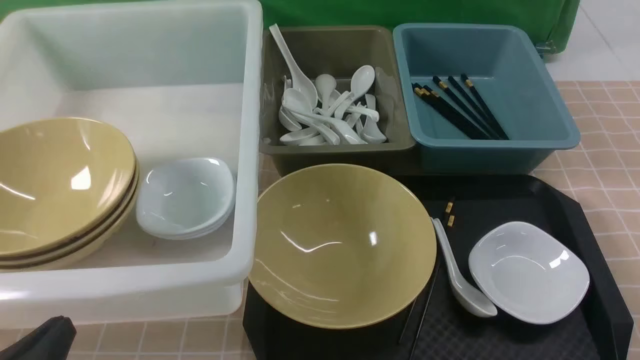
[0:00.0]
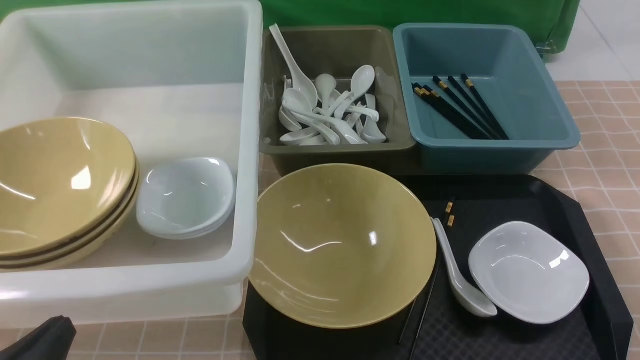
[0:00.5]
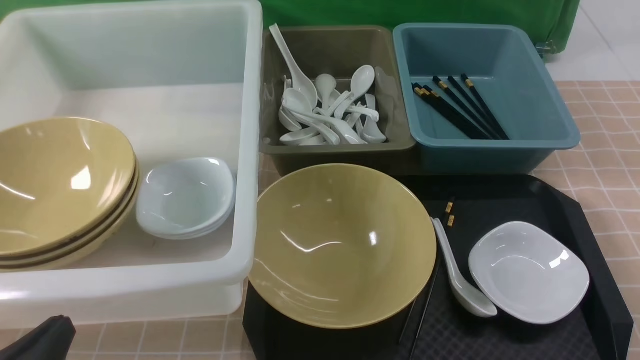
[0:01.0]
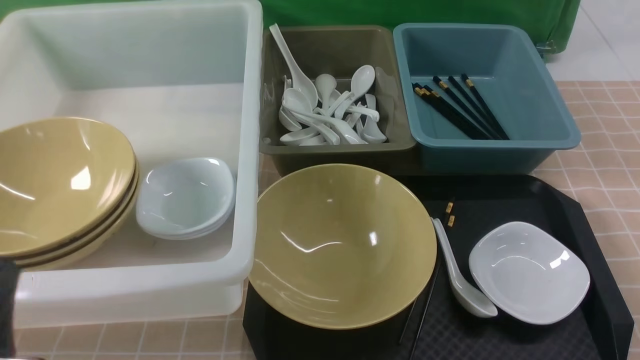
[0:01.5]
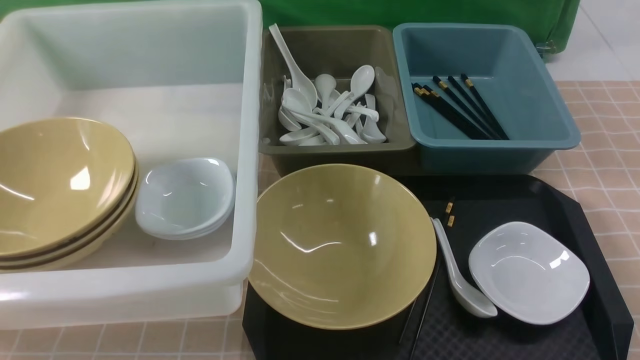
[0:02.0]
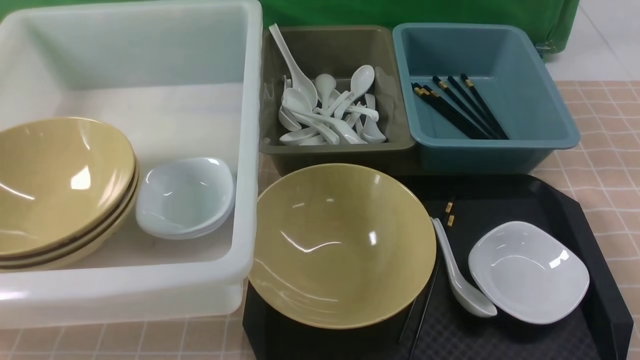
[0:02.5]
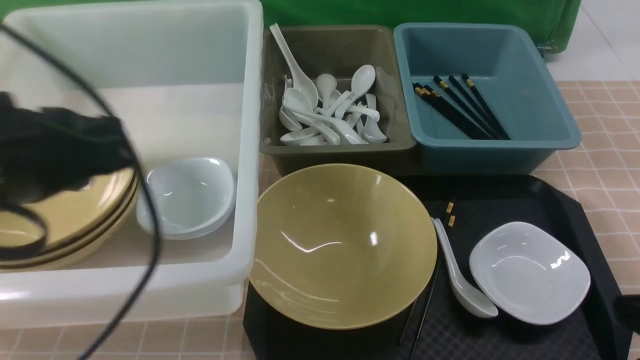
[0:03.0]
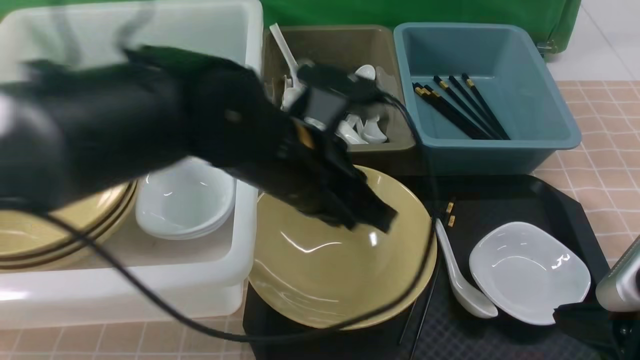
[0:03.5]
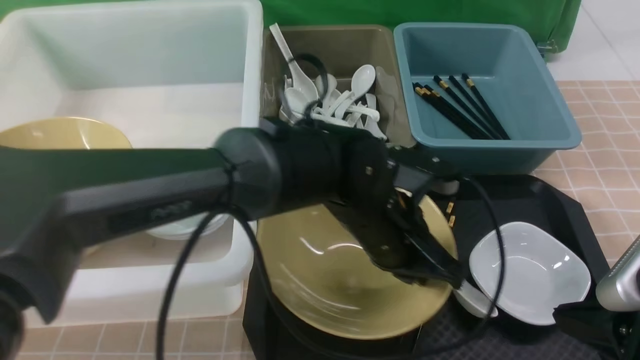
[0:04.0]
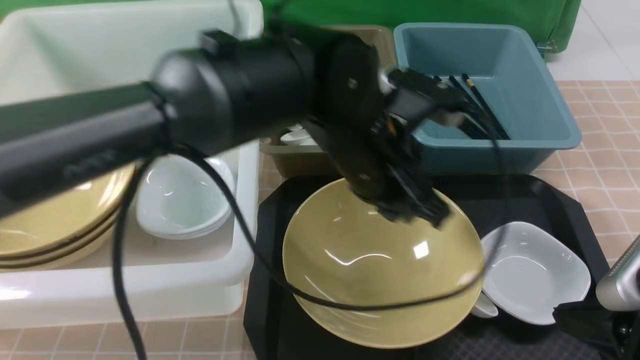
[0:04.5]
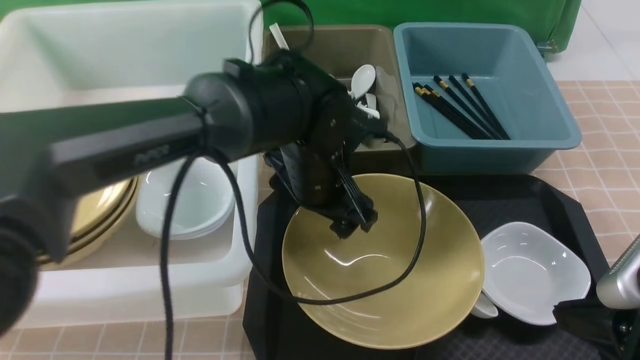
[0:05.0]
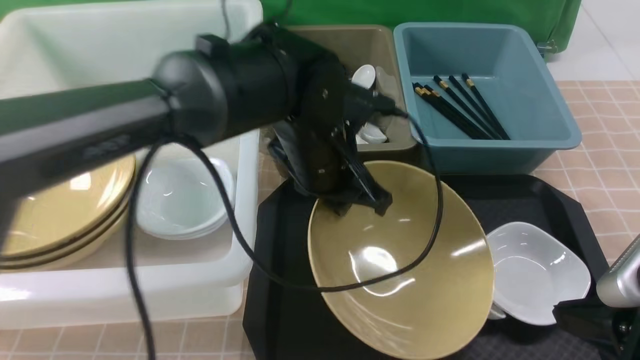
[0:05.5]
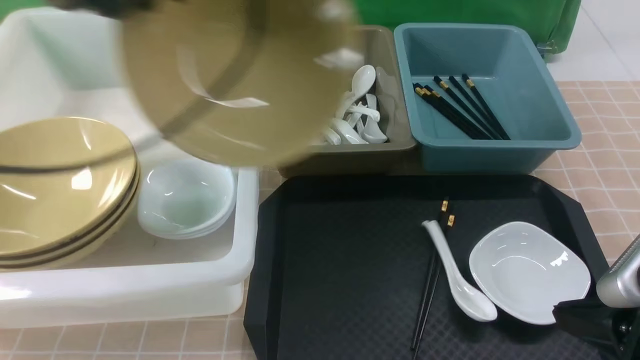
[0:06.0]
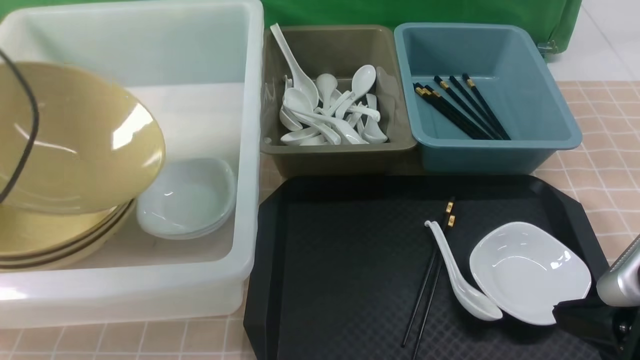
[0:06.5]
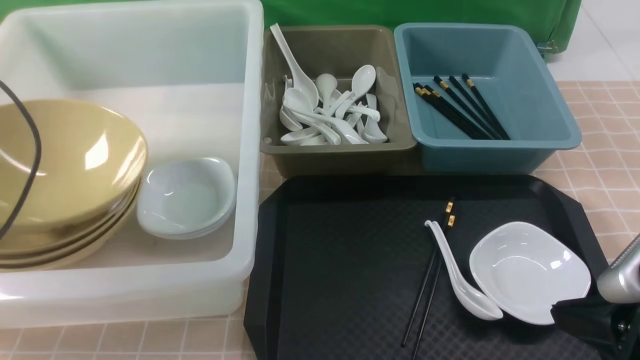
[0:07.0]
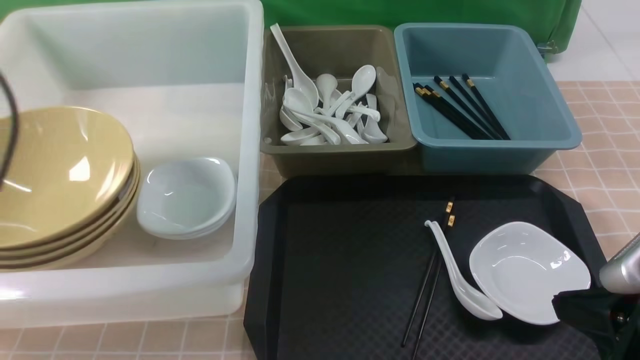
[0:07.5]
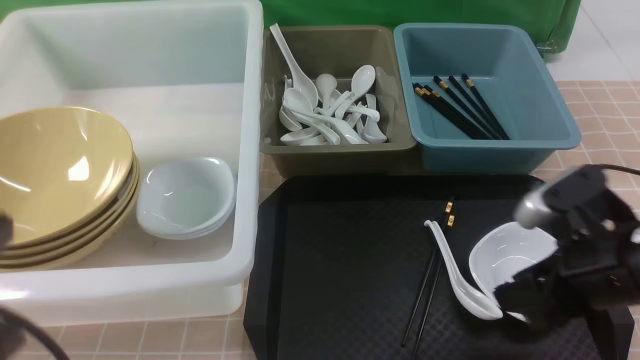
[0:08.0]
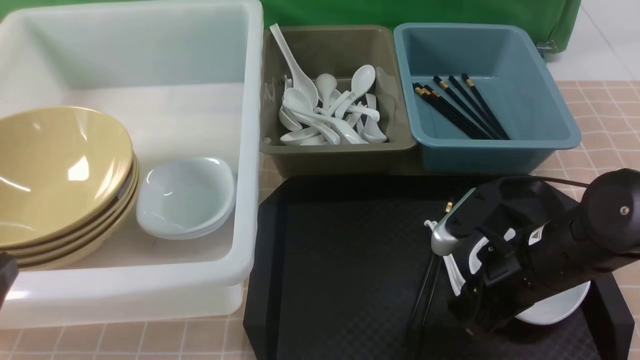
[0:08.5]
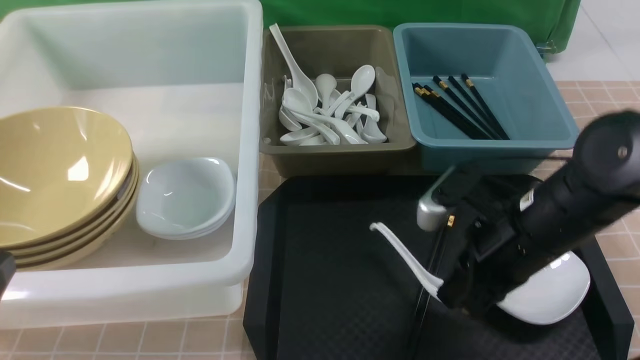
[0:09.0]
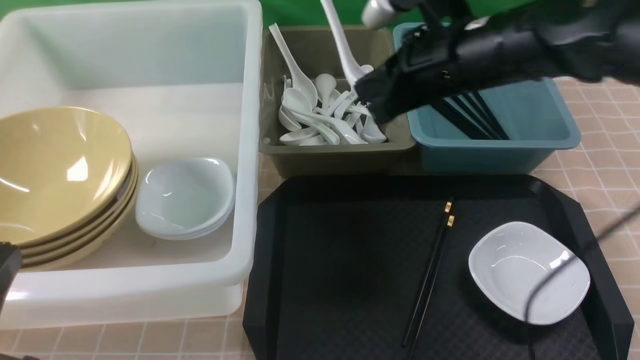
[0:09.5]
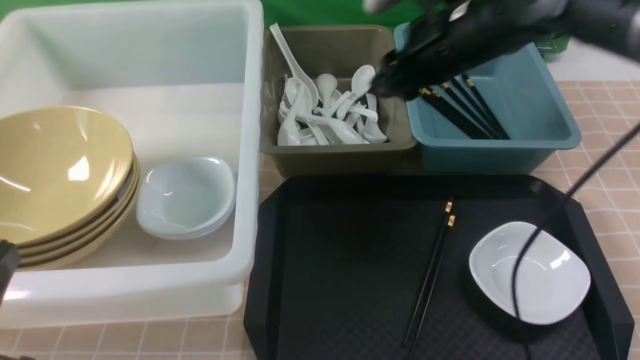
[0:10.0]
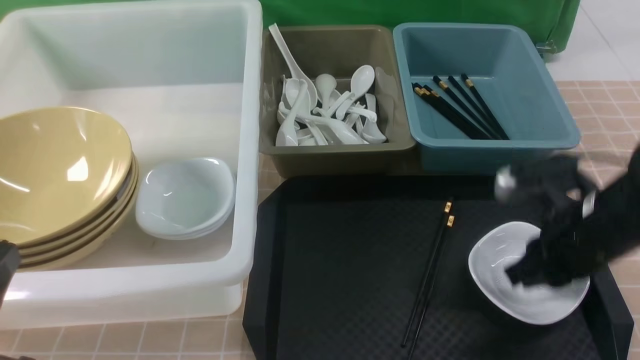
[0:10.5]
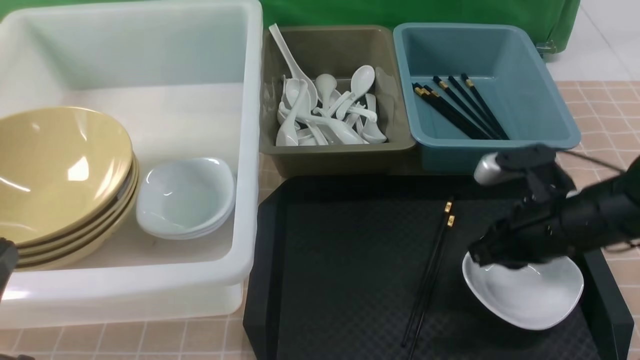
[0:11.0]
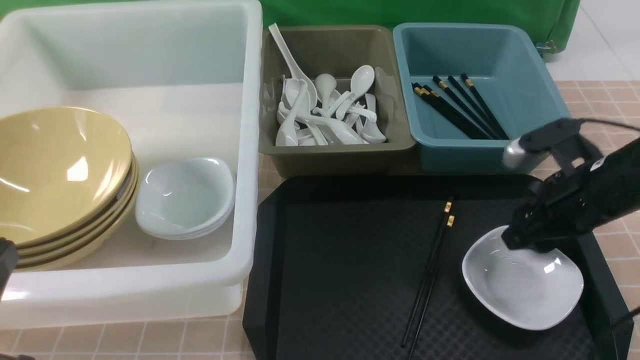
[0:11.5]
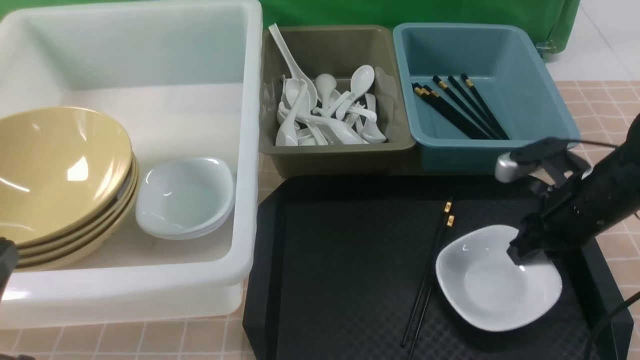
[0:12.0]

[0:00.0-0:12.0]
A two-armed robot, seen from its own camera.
Task of the whole recording: on brown table put chopsticks spoon bowls plates into blue grey white boxes.
Step, 0:00.0 to 0:05.5: use the left arm to grab the yellow noodle bowl on the left.
Step, 0:06.0 to 0:07.5: use the left arm to put the noodle bowl into the large storage box on the left.
Step, 0:08.0 to 0:08.5: use the right arm to grab the soup spoon in the middle.
Step, 0:09.0 to 0:09.5: use the right arm to put the soup spoon into the small storage box in the middle.
Step, 0:10.0 to 0:11.5: use the right arm to grab the plate.
0:00.0 to 0:02.0: The left gripper moves upward, some 10 cm.
0:02.0 to 0:04.0: The left gripper moves to the right and forward, some 40 cm. The right gripper moves forward and to the left, some 10 cm, and closes up.
0:04.0 to 0:06.0: The left gripper goes roughly 35 cm to the left and upward, and opens, then closes again.
0:06.0 to 0:08.0: The right gripper heads forward, covering roughly 5 cm, and opens; the left gripper shifts some 25 cm backward and downward, and opens, then closes once more.
0:08.0 to 0:10.0: The right gripper is displaced forward and upward by about 20 cm, and closes and opens again; the left gripper ends up roughly 5 cm from where it was.
0:10.0 to 0:12.0: The right gripper goes approximately 20 cm downward, to the right and backward, and opens, then closes once more.

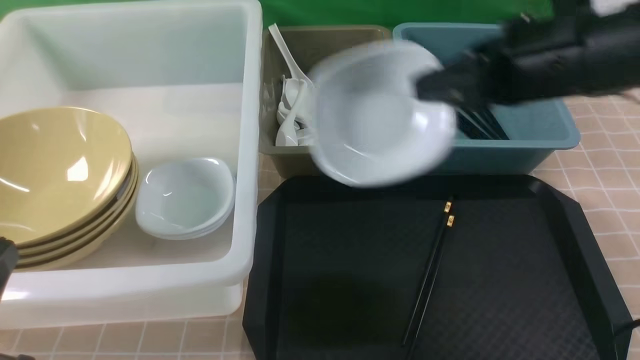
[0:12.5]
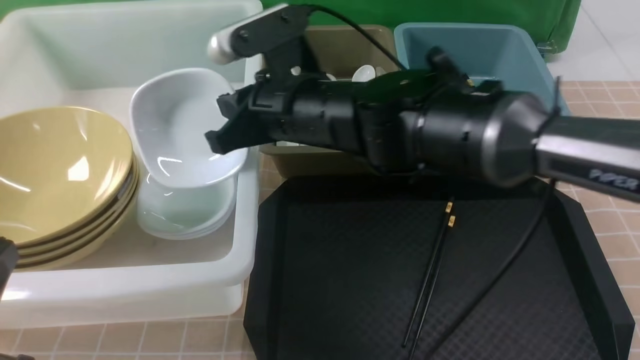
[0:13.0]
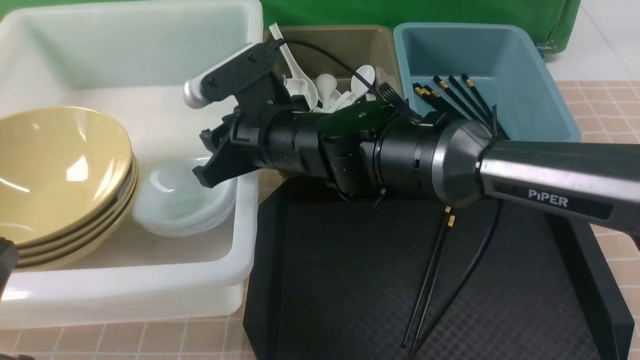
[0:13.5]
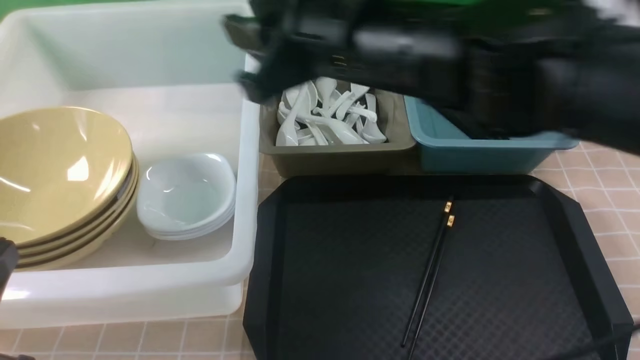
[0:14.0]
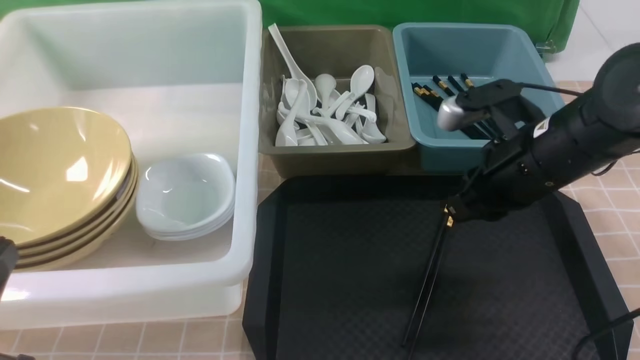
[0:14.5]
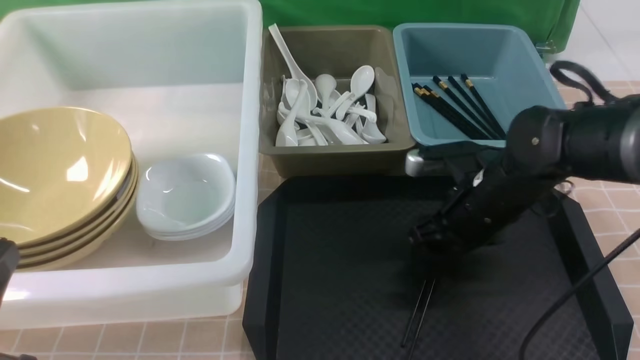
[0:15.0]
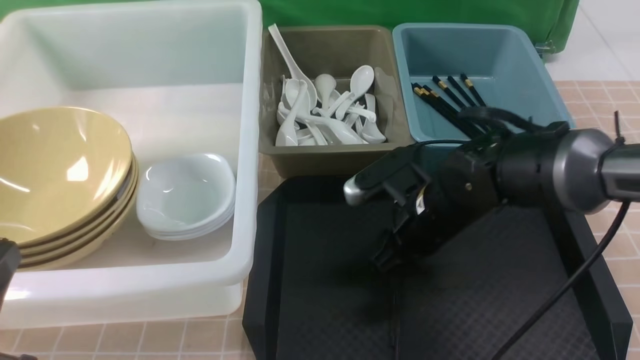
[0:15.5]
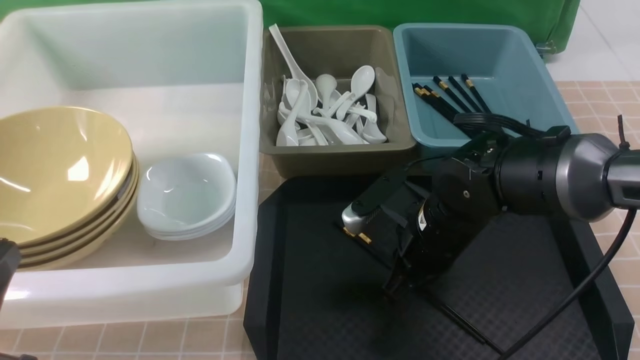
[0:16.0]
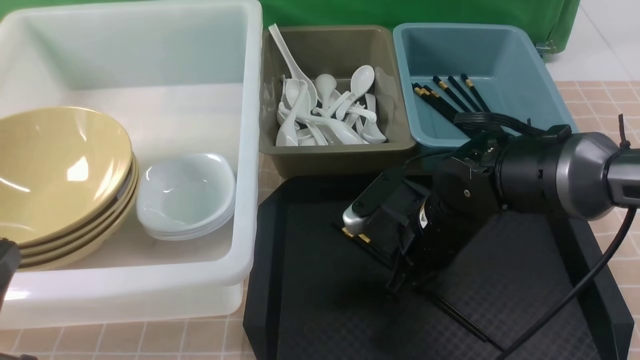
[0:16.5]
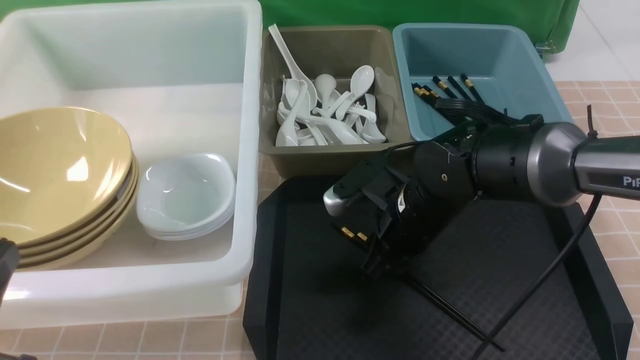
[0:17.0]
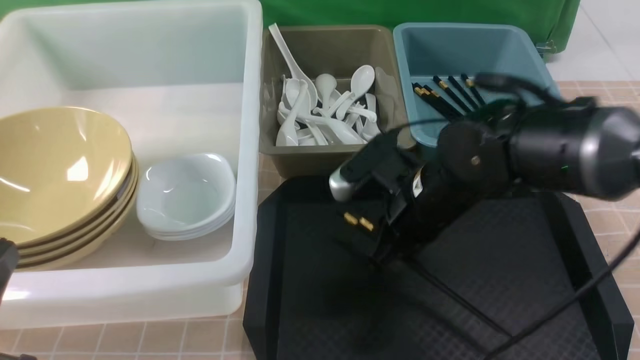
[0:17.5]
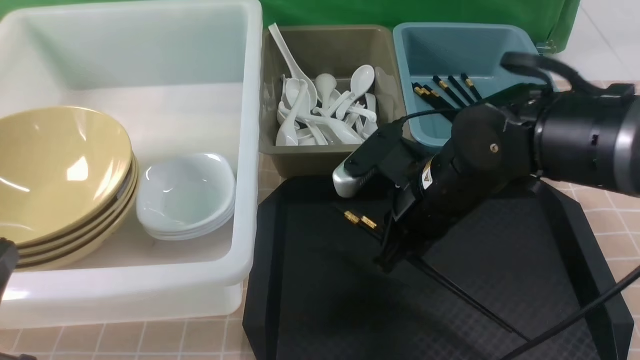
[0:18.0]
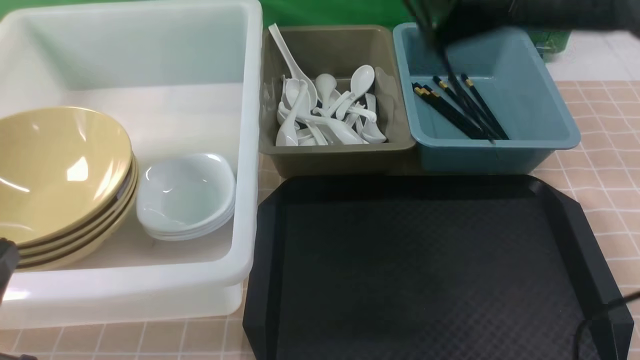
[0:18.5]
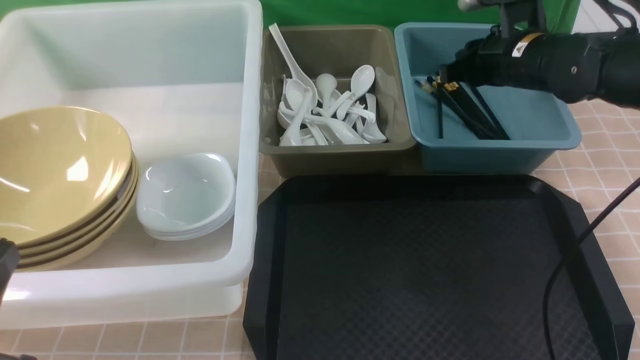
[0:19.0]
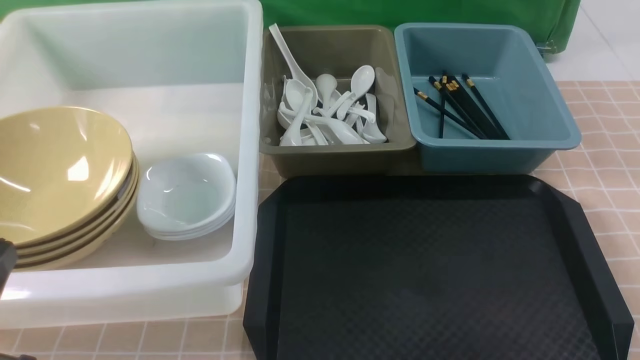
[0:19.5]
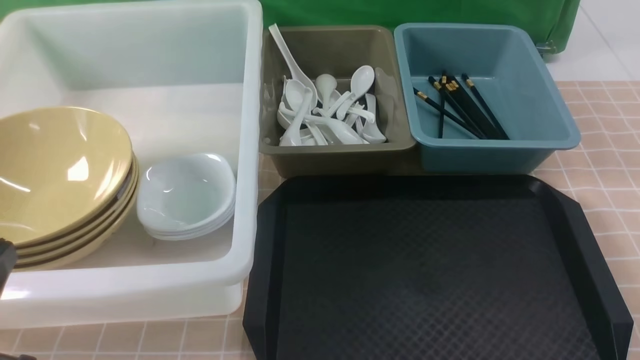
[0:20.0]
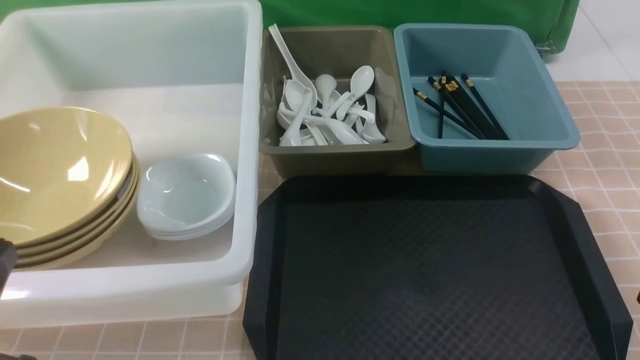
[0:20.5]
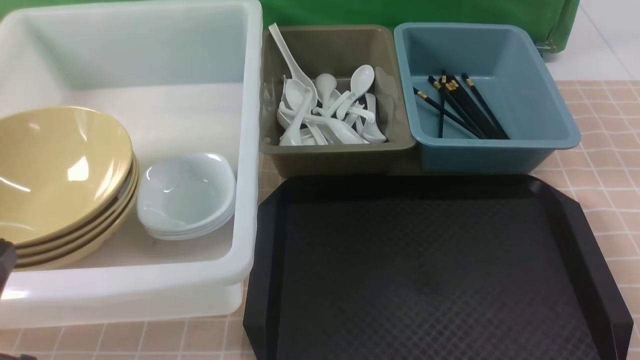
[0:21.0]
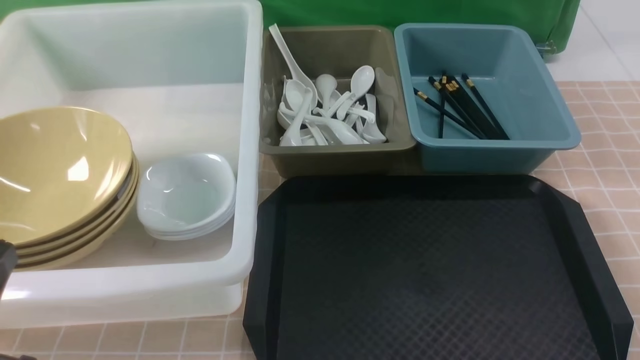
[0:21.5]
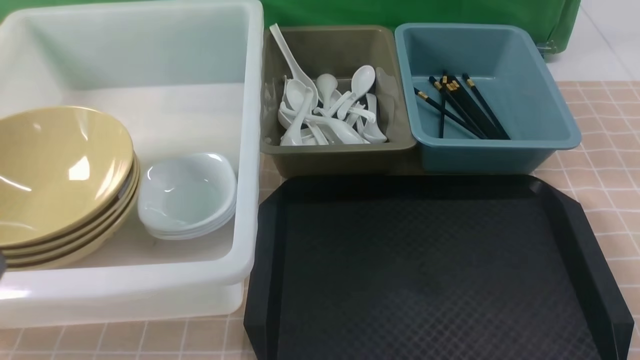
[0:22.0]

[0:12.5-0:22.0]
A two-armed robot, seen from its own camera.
Task of the whole recording: on brown table put chopsticks spoon bowls plates into blue grey white boxes.
Step, 0:12.5 to 0:13.5: use the right arm to put the plate into the large storage box on the left.
Step, 0:14.0 to 0:17.5: use the right arm to grab the chopsticks.
Step, 0:18.0 to 0:19.0: use the right arm to put the chopsticks into the small storage box on the right.
0:12.5 to 0:14.5: The right gripper moves downward, approximately 10 cm, and reaches about 20 cm to the left, then returns.
0:14.5 to 0:16.5: The right gripper heads downward and to the left, covering some 10 cm.
0:16.5 to 0:18.0: The right gripper is displaced upward by some 10 cm, and closes its fingers.
0:18.0 to 0:20.0: The right gripper heads backward and to the right, covering some 25 cm.
